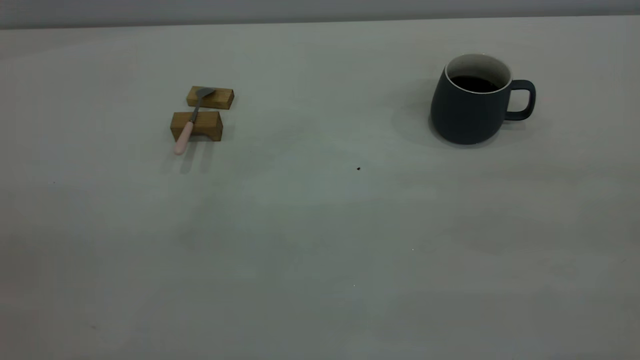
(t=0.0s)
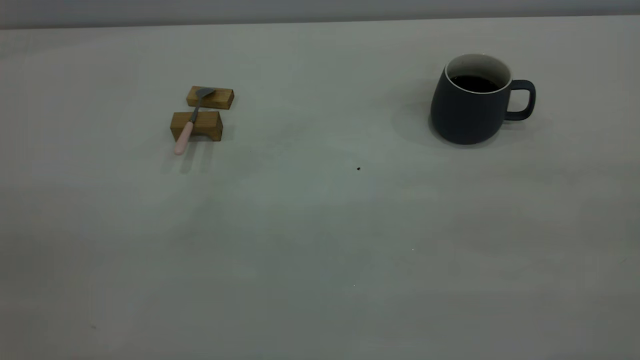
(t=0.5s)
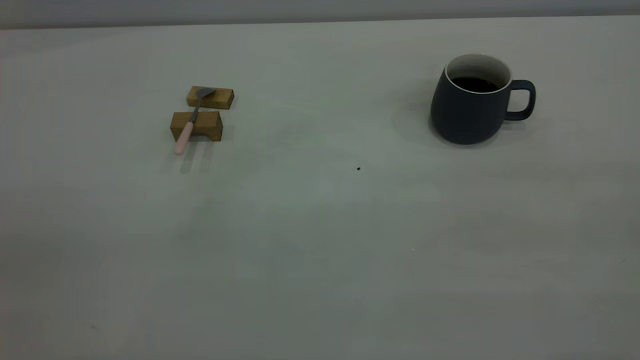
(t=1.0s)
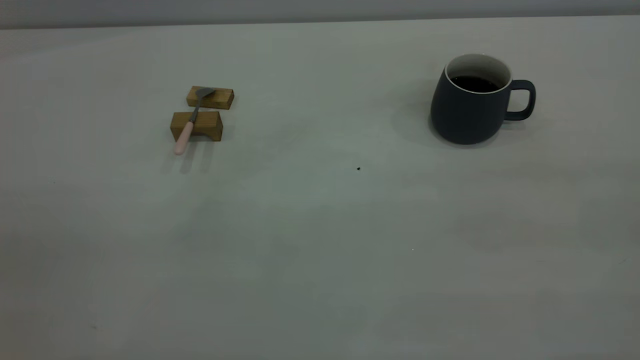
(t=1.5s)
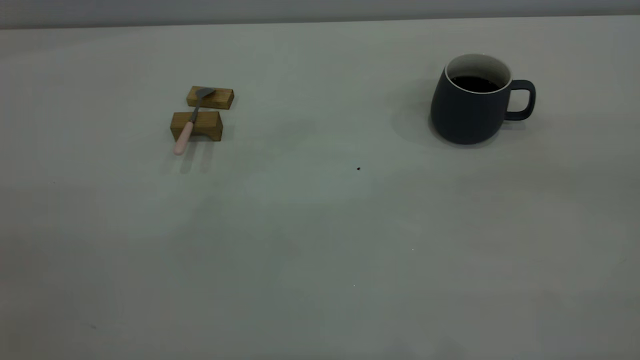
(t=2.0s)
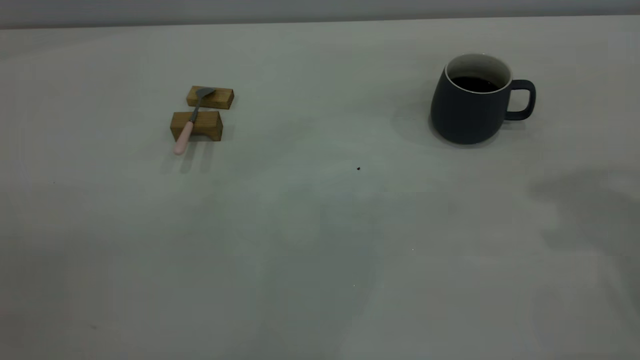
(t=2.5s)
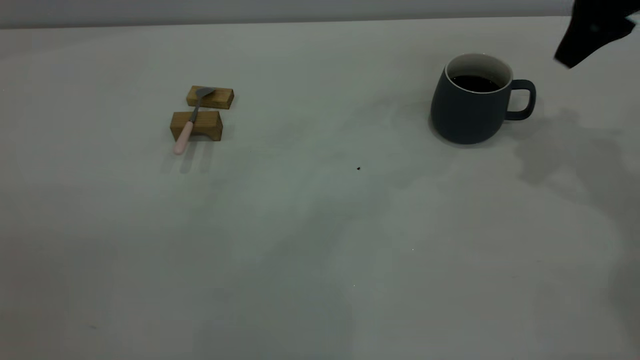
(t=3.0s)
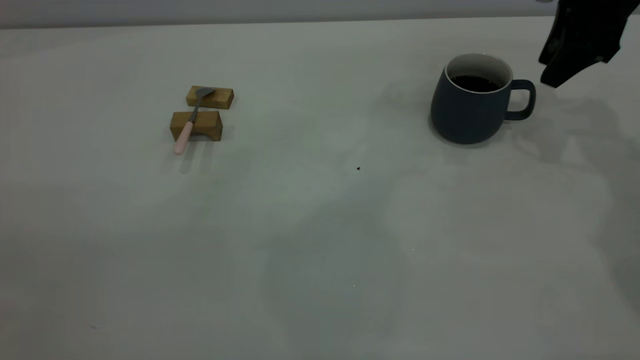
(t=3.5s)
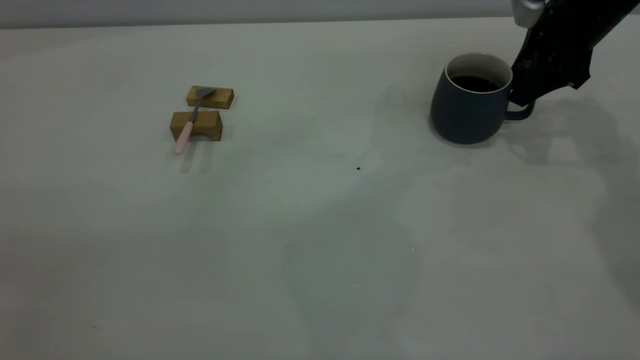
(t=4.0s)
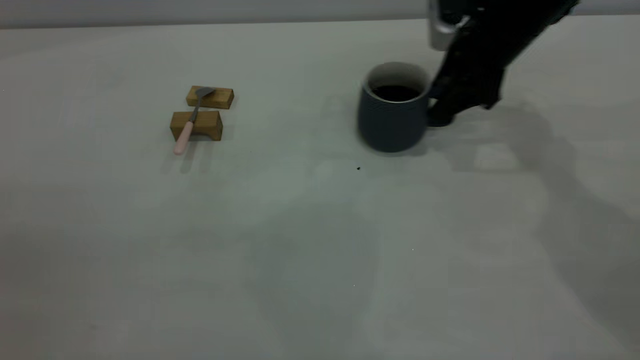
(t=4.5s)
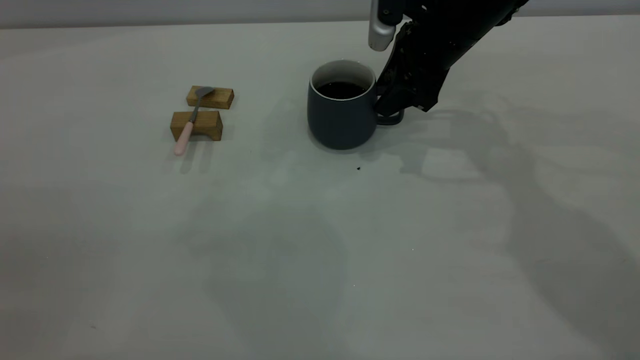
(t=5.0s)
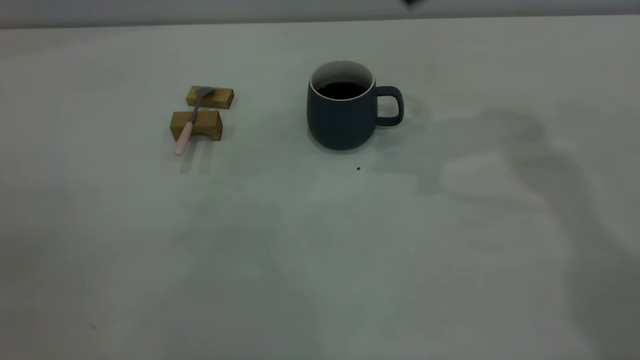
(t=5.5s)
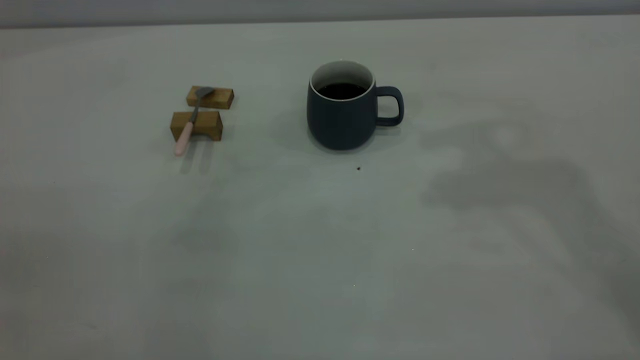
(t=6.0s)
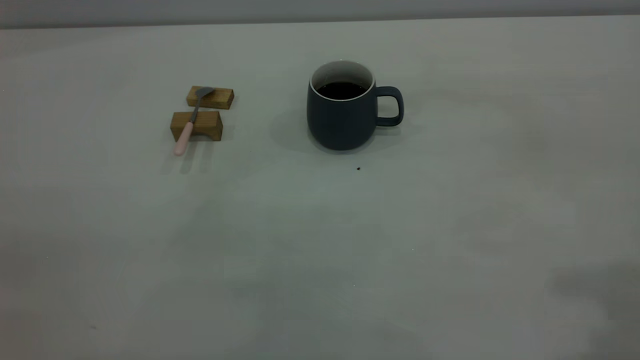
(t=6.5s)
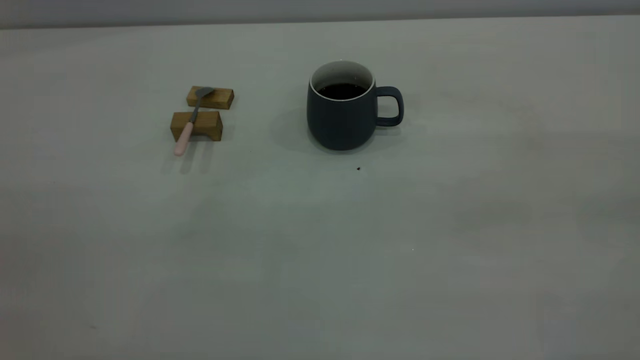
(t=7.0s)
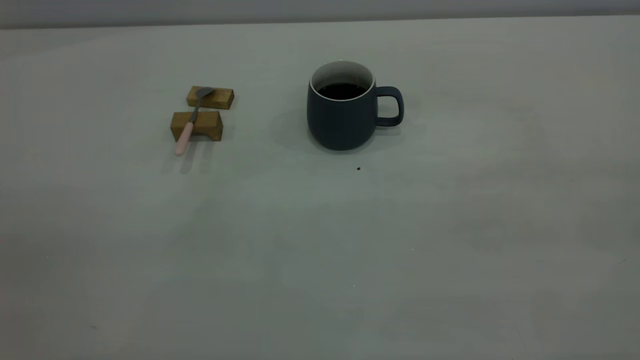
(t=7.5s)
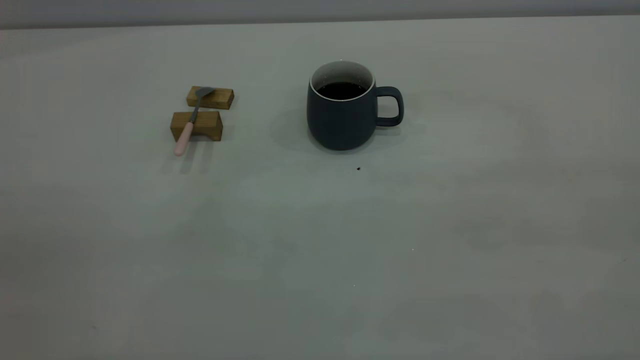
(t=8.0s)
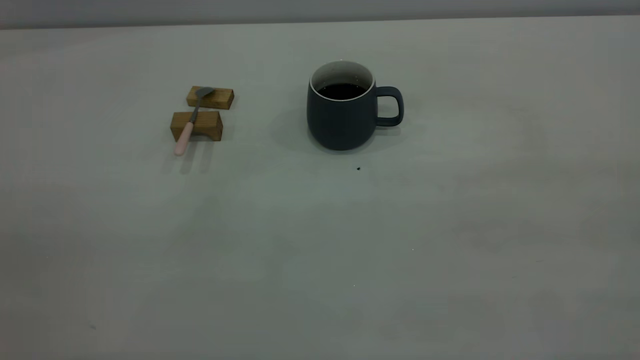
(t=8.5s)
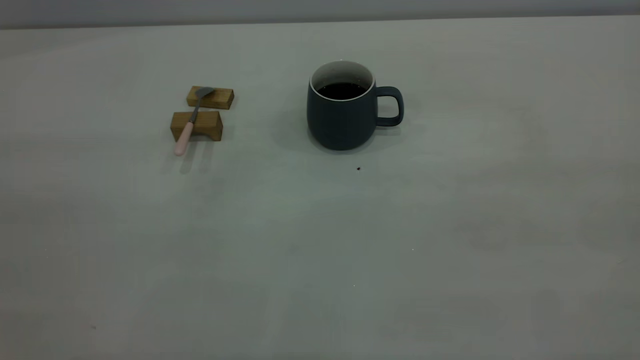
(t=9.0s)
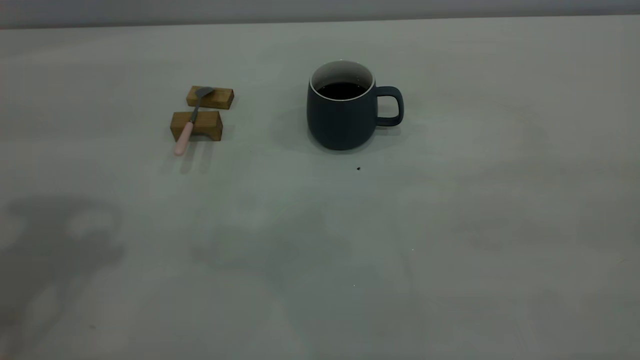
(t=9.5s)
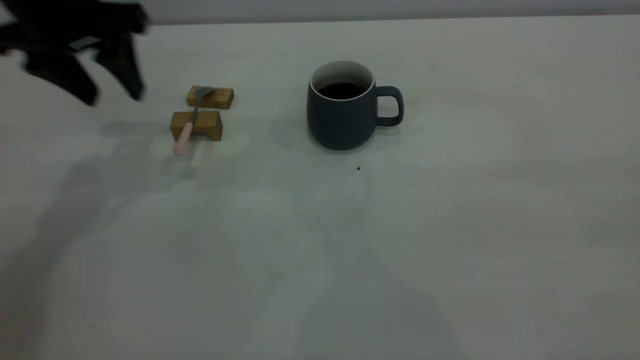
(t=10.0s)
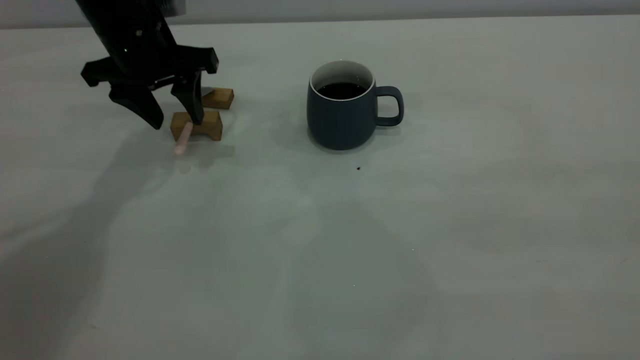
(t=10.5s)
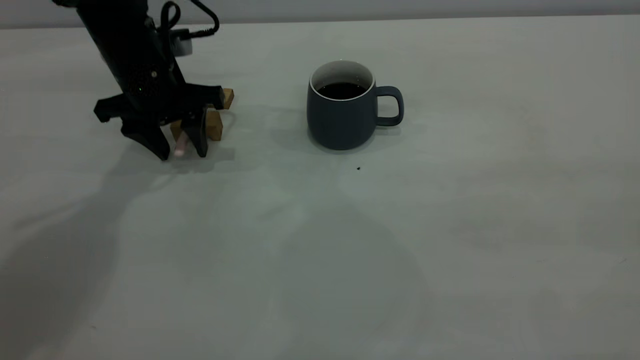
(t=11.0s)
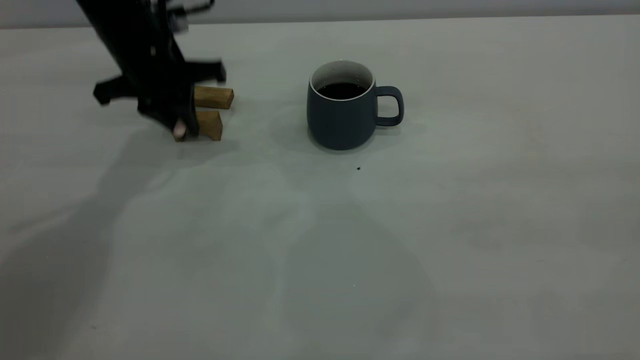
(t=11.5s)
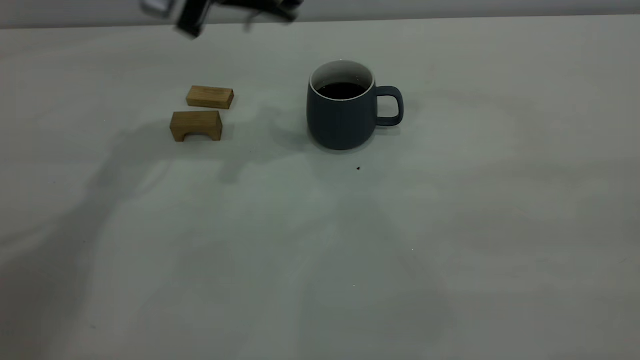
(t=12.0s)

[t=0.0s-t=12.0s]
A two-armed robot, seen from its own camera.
Step, t=0.0s to t=5.0s: Move the cup with coffee to the center of view.
Step, t=5.5s to t=11.5s: Pick up the spoon.
t=2.0s to t=4.0s: The right gripper heads forward and downward, covering approximately 40 cm.
t=4.0s to t=6.0s: The right gripper goes roughly 30 cm upward and backward.
t=8.0s to t=10.0s: The left gripper is displaced forward by about 40 cm.
t=10.0s to t=12.0s: The left gripper travels to the right by roughly 10 cm, travels downward and back again, approximately 10 cm each way, and closes.

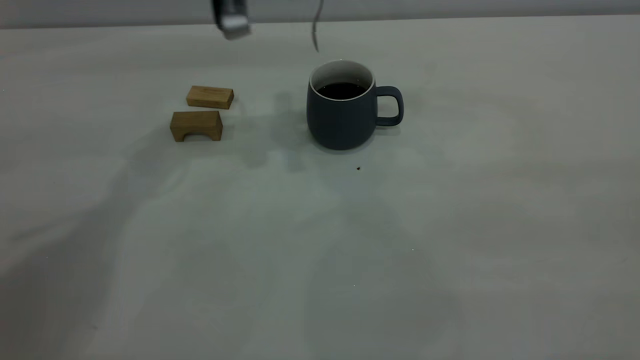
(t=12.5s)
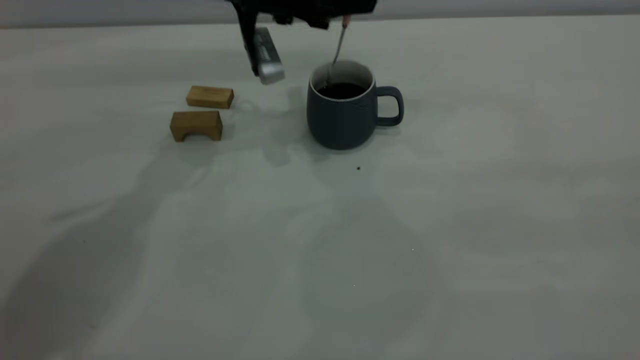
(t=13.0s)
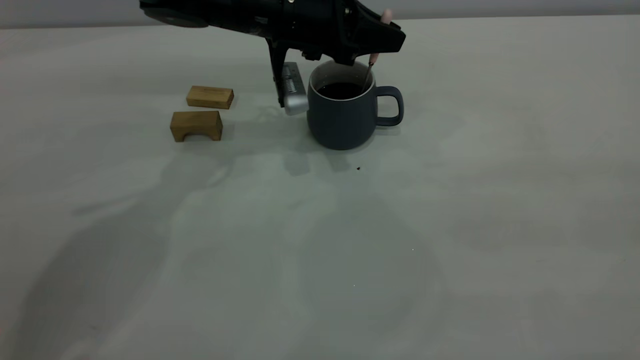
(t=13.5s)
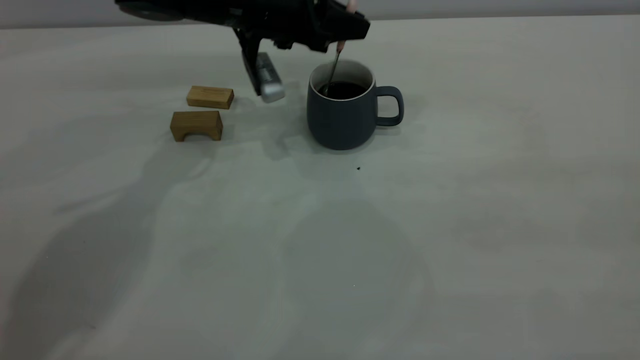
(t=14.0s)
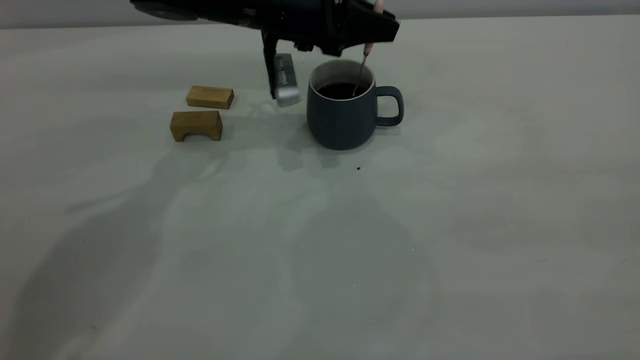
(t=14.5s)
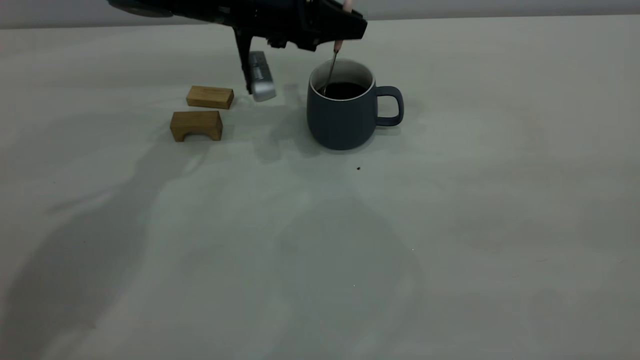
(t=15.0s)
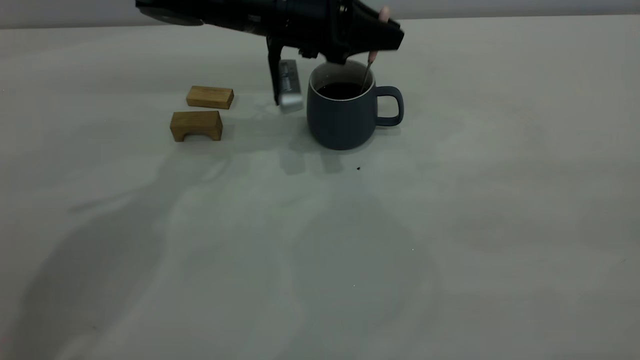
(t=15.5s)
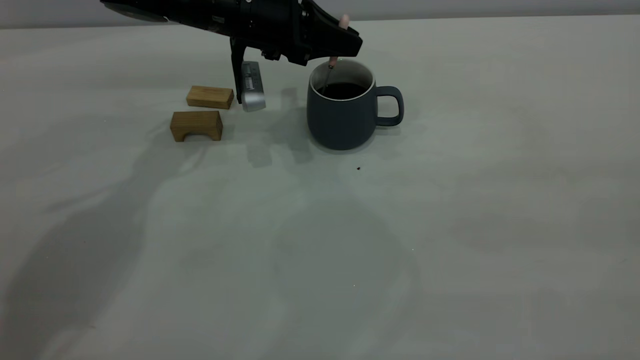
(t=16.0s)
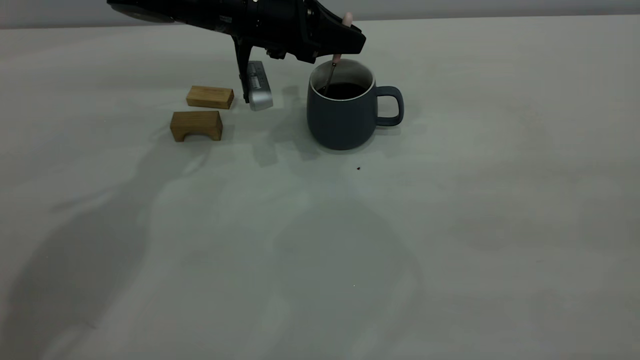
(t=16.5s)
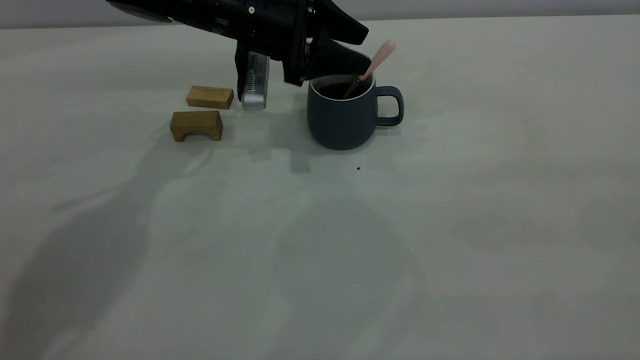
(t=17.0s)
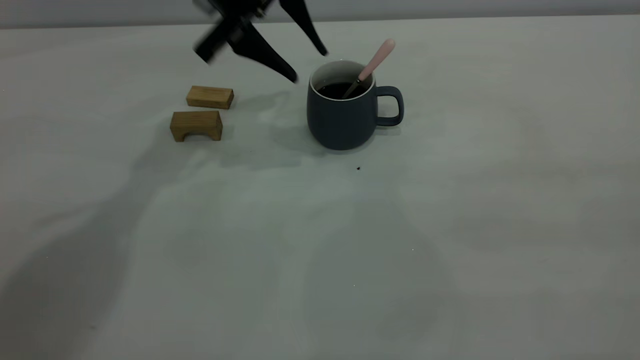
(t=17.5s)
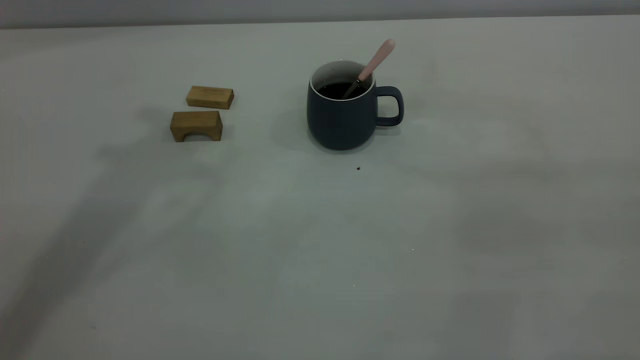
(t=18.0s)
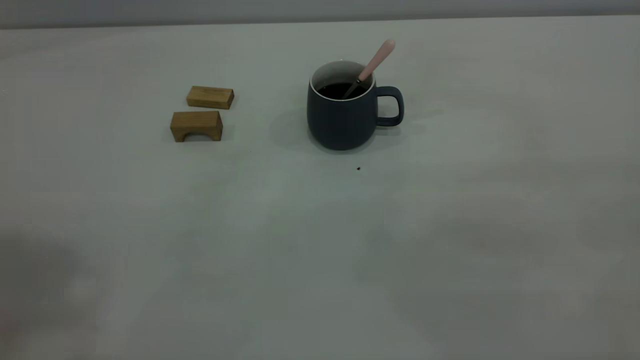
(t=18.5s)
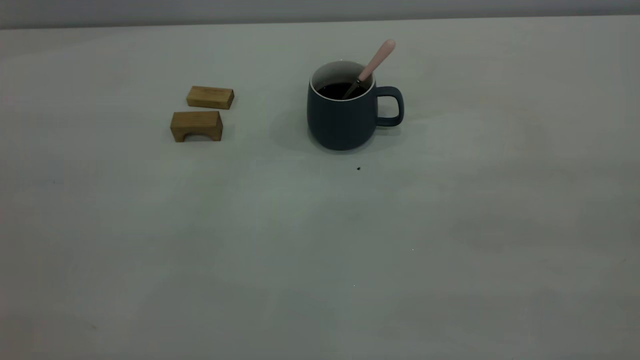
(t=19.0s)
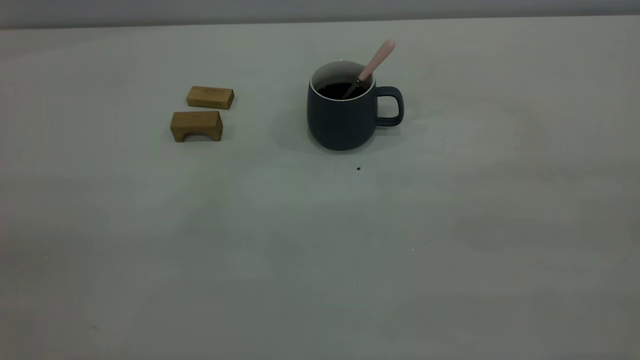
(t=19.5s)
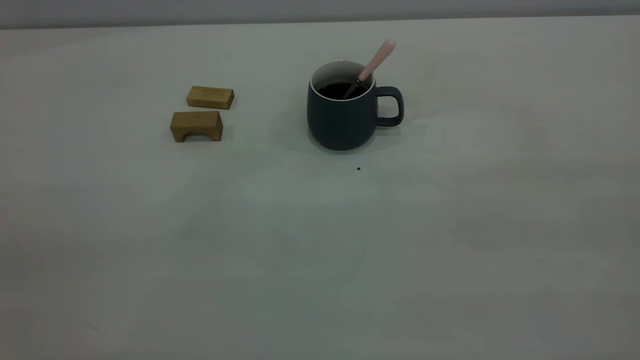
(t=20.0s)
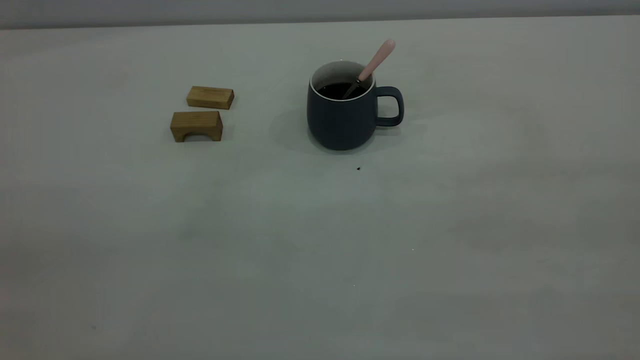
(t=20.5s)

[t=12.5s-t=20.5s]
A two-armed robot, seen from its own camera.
Step, t=12.5s to t=17.5s: Stir the coffee in the cup.
t=12.5s to t=14.5s: The left gripper shifts roughly 10 cm downward.
t=14.5s to t=16.5s: There are only small adjustments of the grippers.
t=16.5s to t=18.5s: The left gripper travels upward and backward by roughly 50 cm, and opens its fingers.
